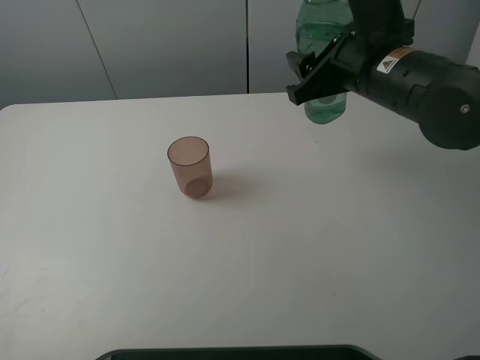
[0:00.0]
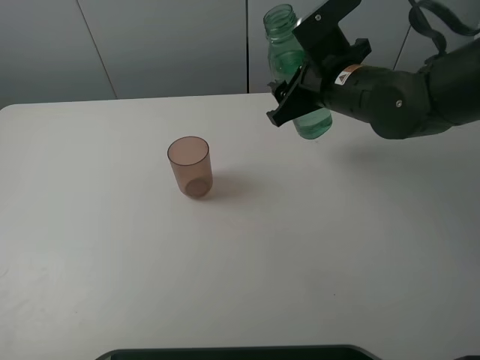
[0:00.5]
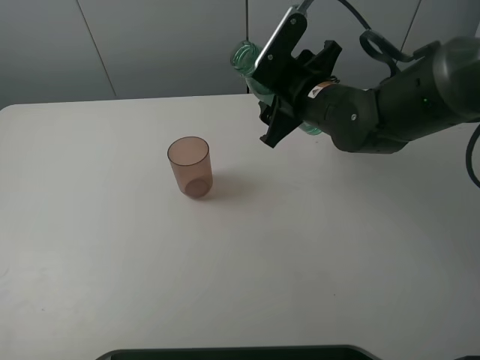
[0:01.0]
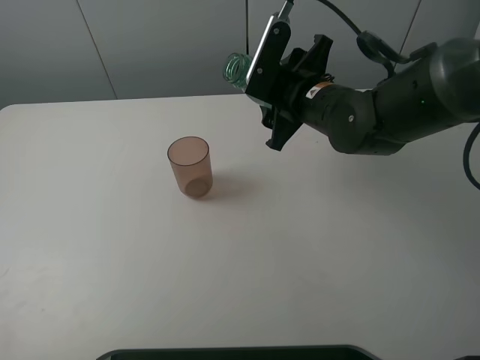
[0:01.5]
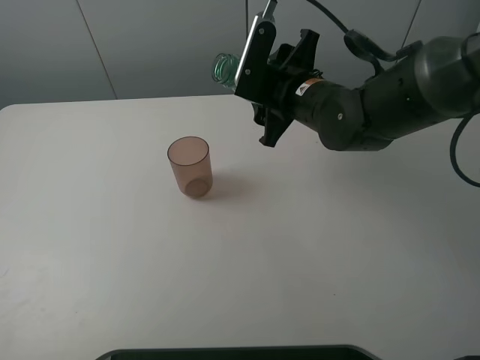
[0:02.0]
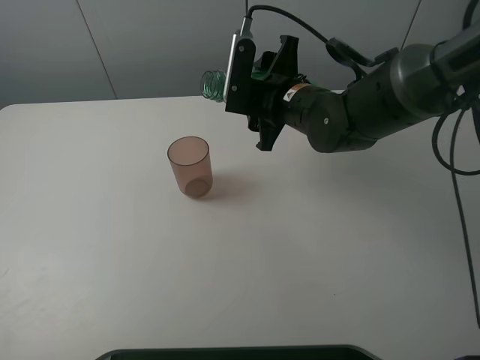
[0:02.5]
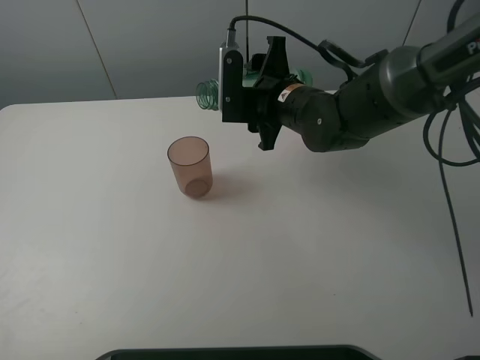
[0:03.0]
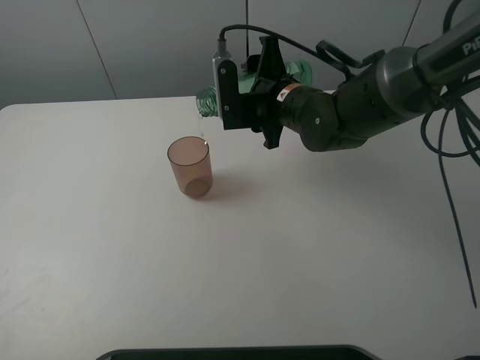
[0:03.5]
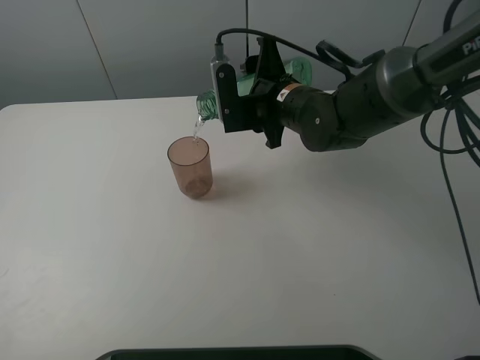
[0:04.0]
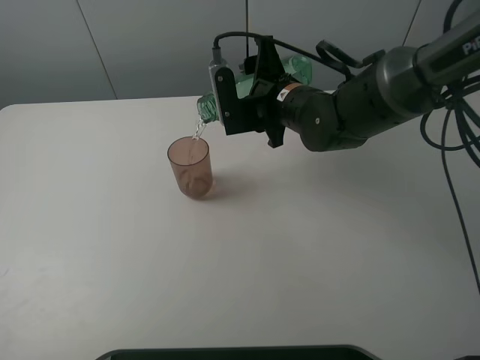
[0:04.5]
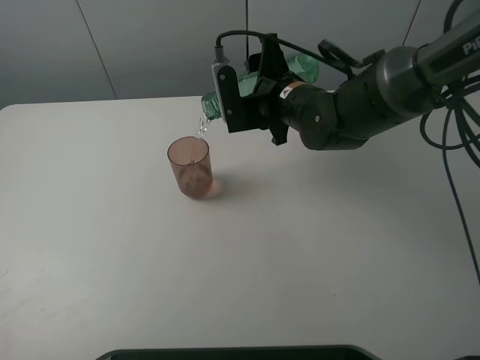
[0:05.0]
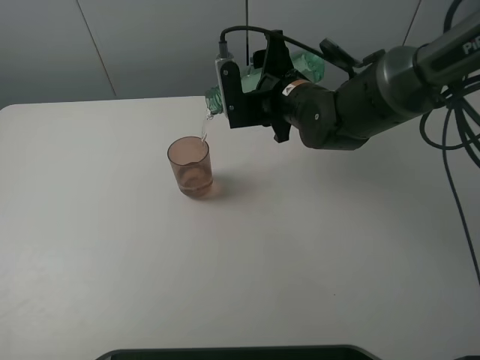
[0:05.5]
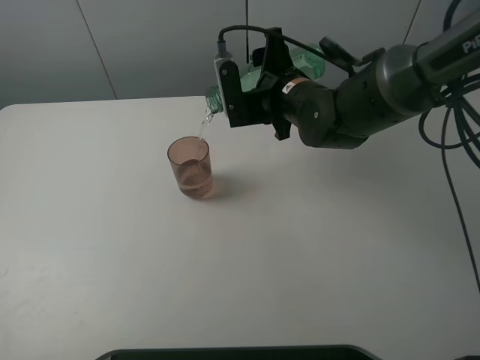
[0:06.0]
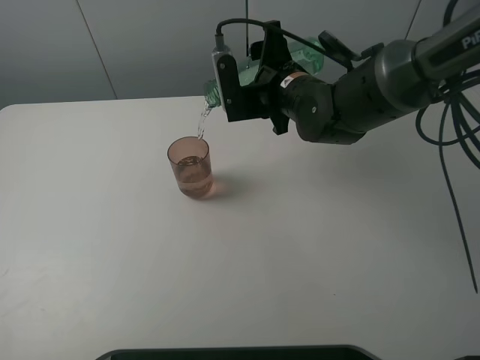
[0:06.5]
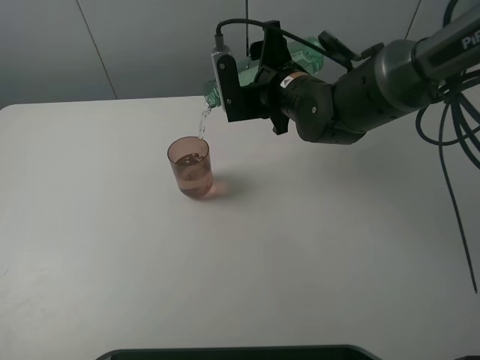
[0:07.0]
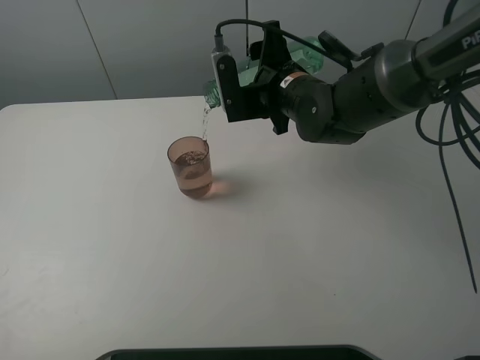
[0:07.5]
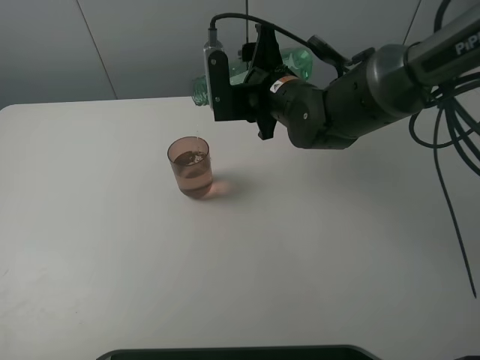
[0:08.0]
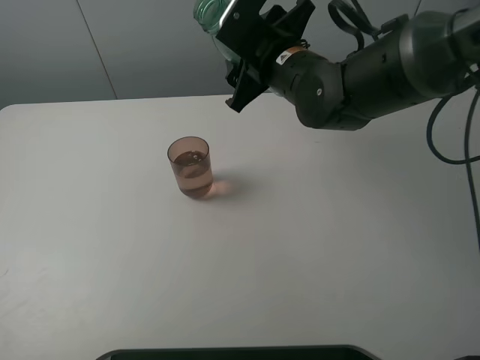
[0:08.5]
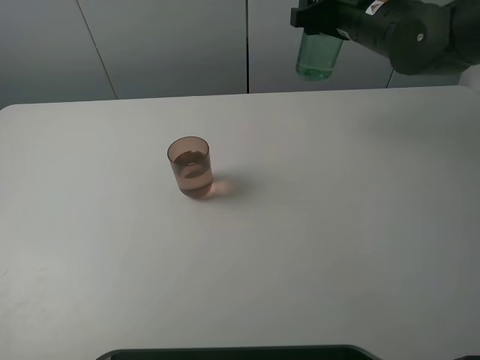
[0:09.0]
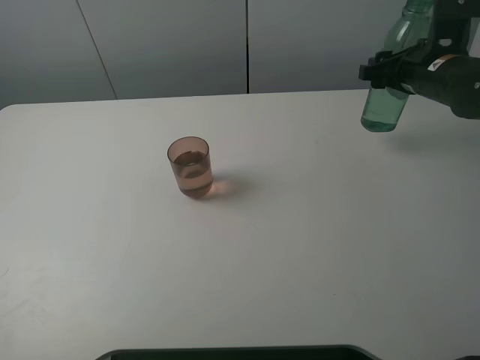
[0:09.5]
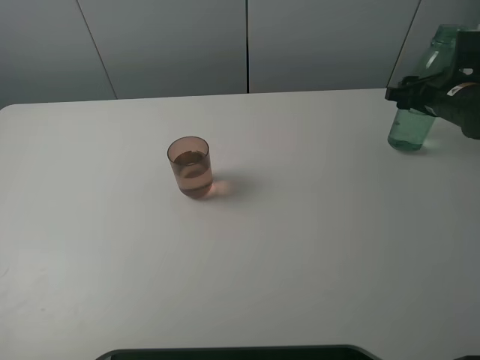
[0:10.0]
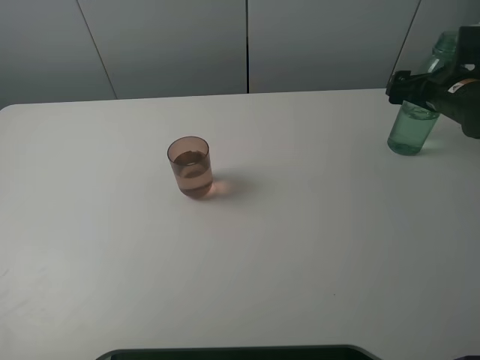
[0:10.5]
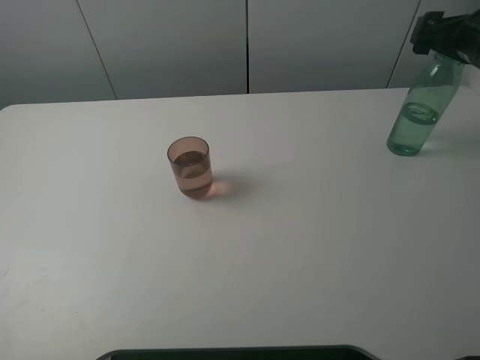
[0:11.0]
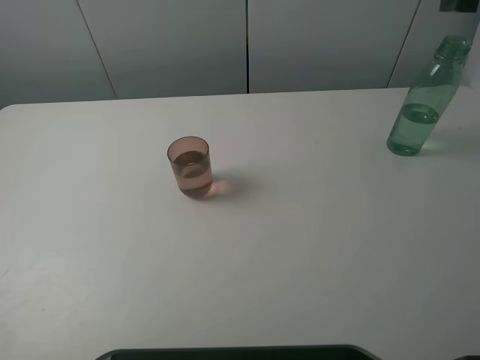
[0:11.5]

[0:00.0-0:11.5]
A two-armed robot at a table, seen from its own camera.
Task of the whole recording: pick up the bottle filled with water and pour it into the pink cup.
Step, 0:00.0 to 0:08.0: Pour water from green bottle to pink cup with the right gripper.
Step, 0:08.5 to 0:10.5: Place the green bottle with the right gripper.
0:00.0 to 0:02.0: The right gripper heads to the left and downward, covering approximately 10 cm.
0:04.0 to 0:06.0: The grippers make only small movements.
0:06.0 to 0:07.5: Both grippers stay put.
0:07.5 to 0:09.5: The right gripper heads to the right, covering approximately 20 cm.
0:09.5 to 0:11.5: The right gripper goes approximately 15 cm upward, and opens its fingers.

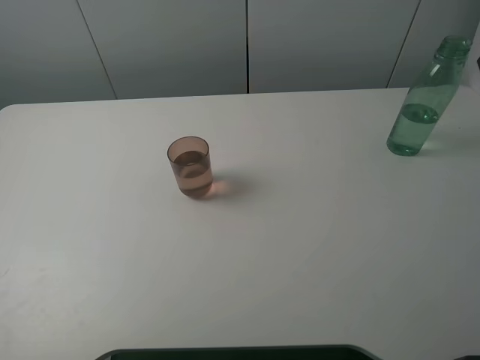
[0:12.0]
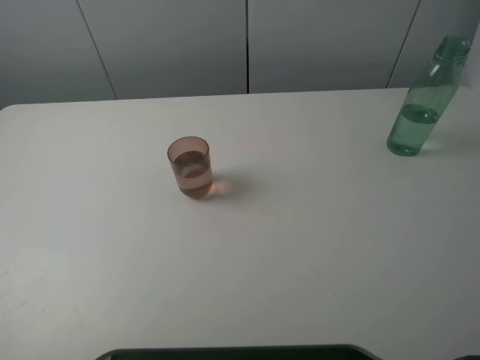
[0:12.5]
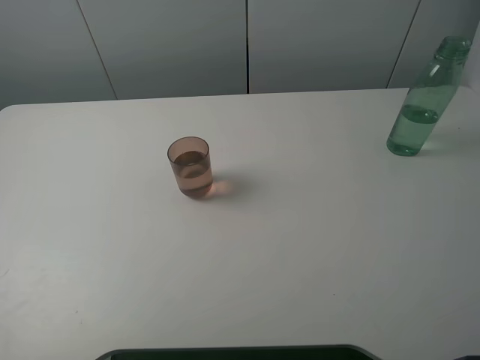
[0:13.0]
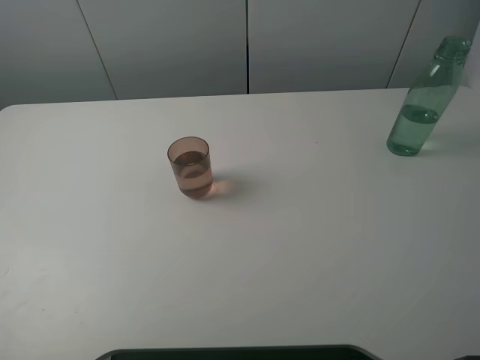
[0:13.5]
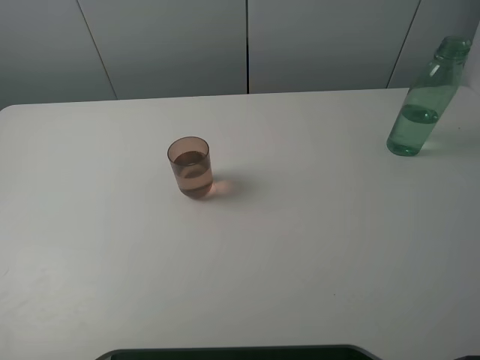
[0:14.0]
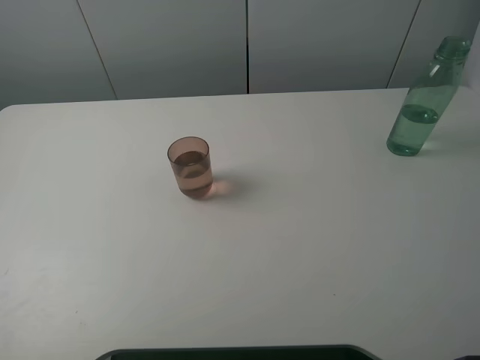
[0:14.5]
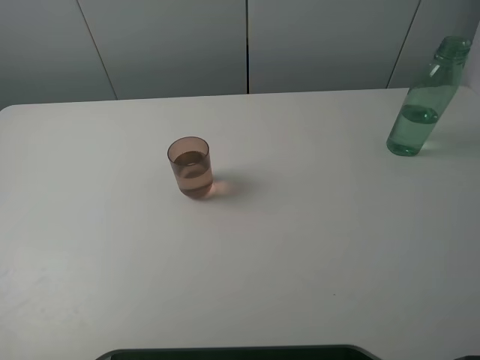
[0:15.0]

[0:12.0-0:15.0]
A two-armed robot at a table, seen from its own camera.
Task of the whole recording: pick up the bottle filled with water and pour it into the pink cup.
0:13.5 to 0:15.0: Both grippers stay put.
